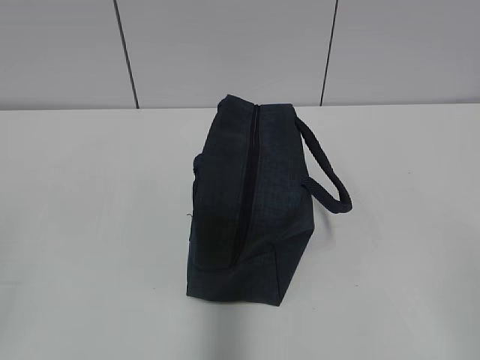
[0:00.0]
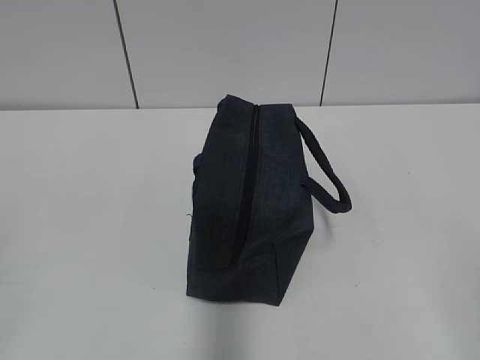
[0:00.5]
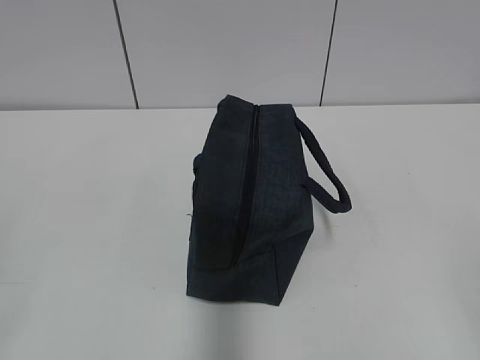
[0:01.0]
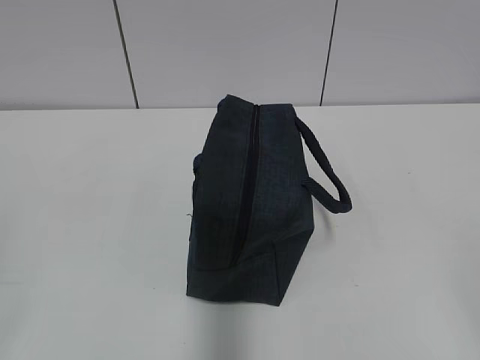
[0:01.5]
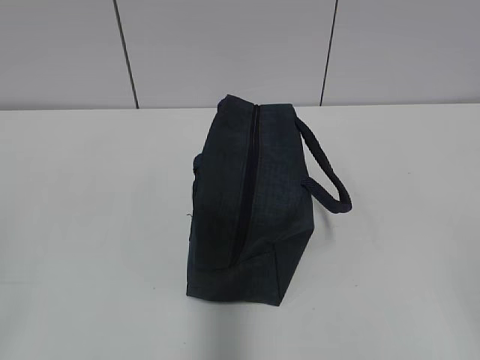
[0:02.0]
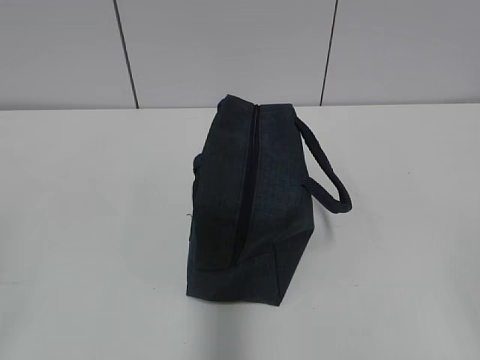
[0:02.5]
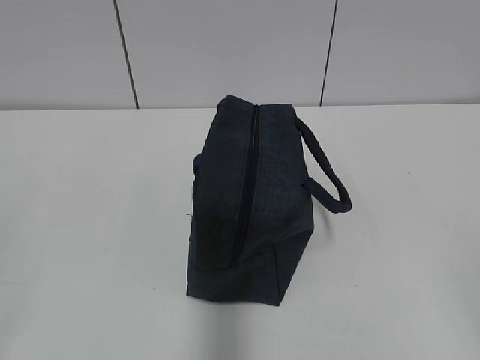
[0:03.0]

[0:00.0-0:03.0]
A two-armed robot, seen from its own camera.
0:01.5 to 0:03.0: Both grippers stay about where they are.

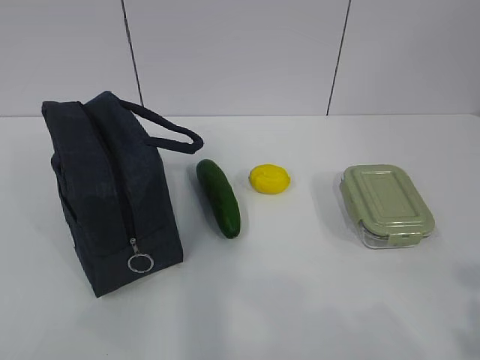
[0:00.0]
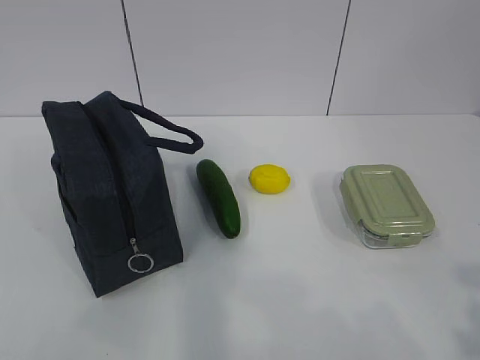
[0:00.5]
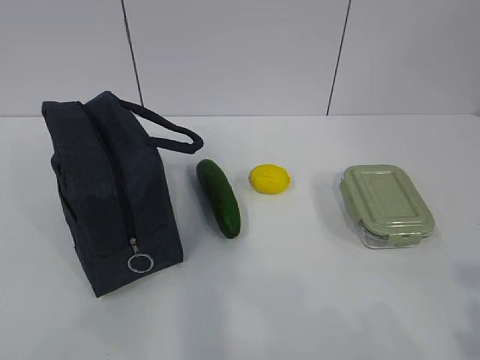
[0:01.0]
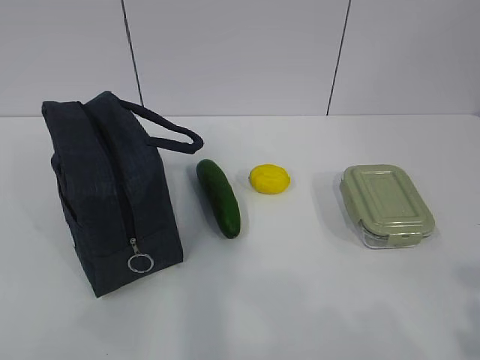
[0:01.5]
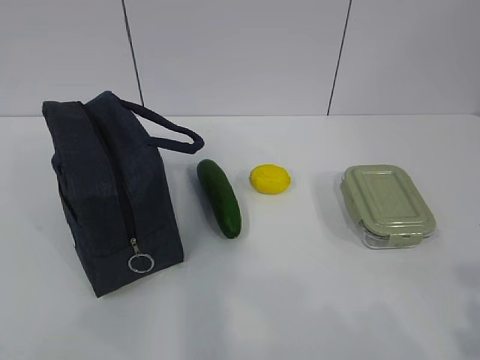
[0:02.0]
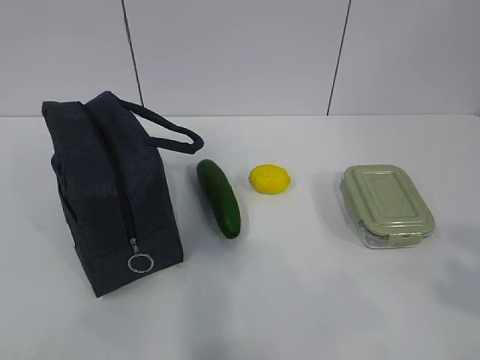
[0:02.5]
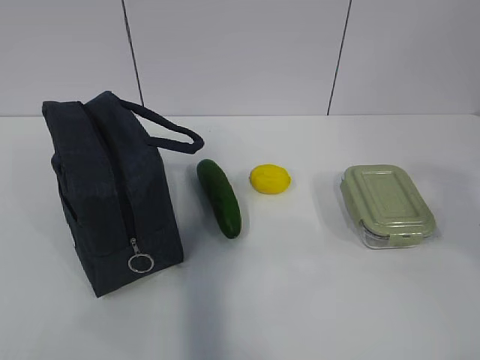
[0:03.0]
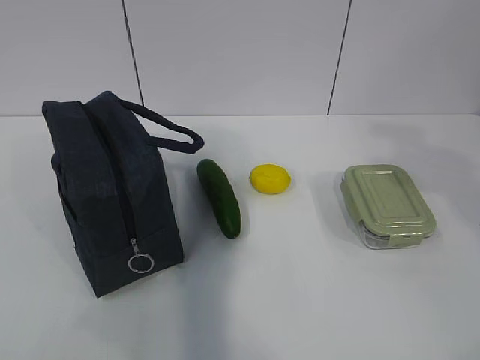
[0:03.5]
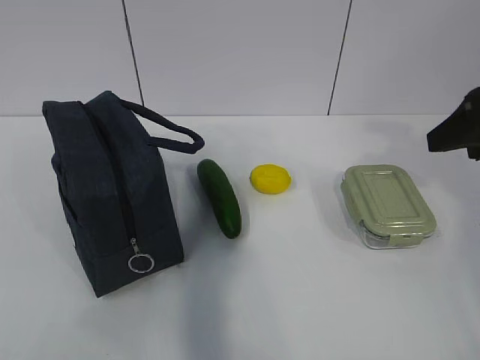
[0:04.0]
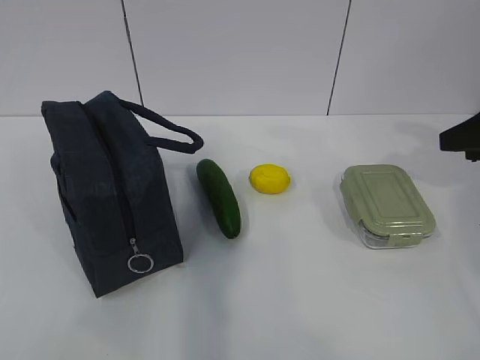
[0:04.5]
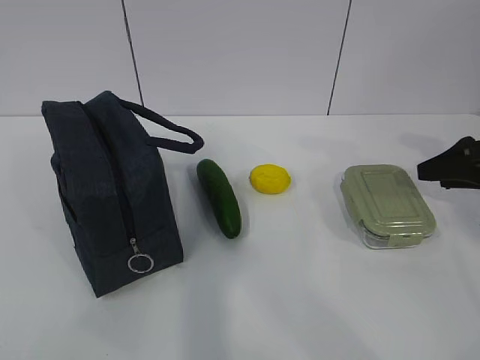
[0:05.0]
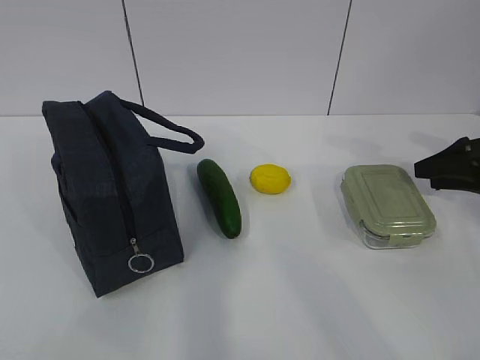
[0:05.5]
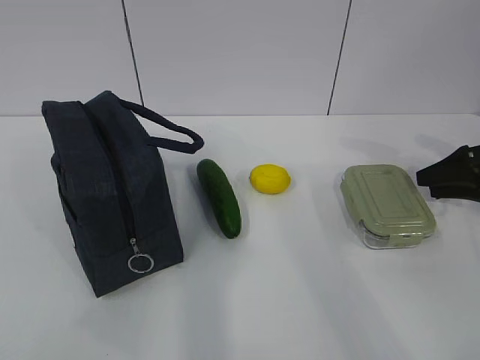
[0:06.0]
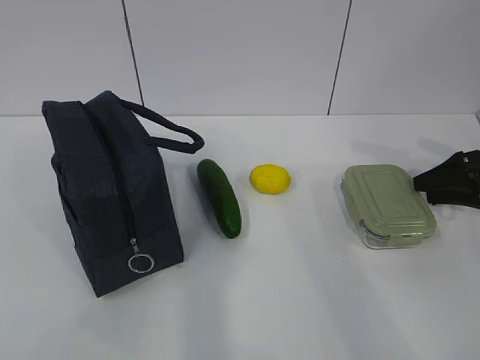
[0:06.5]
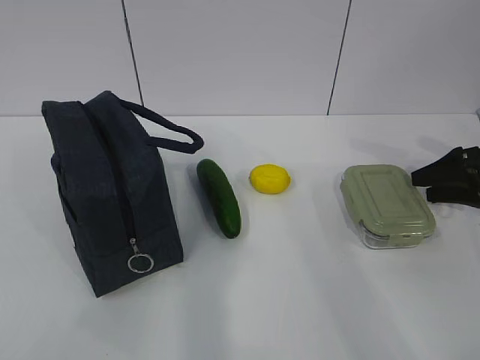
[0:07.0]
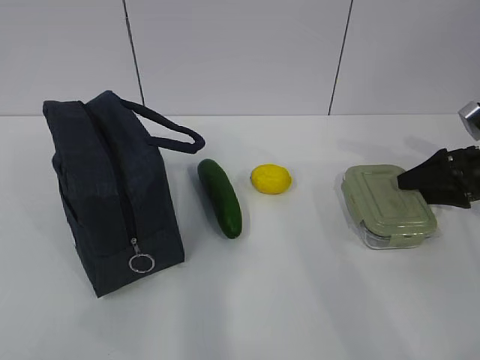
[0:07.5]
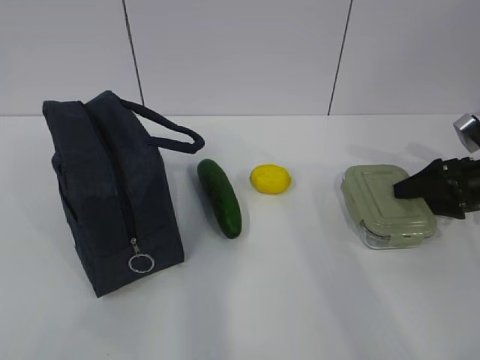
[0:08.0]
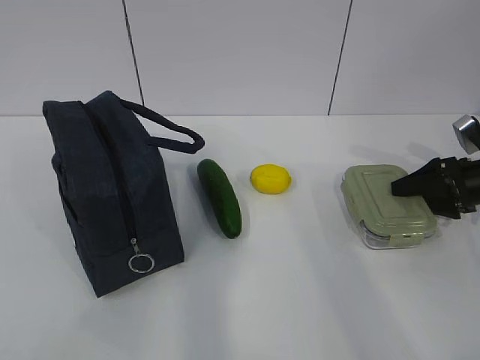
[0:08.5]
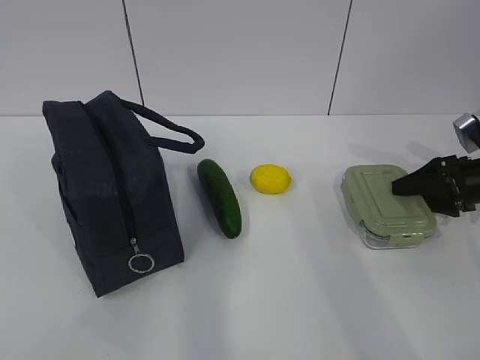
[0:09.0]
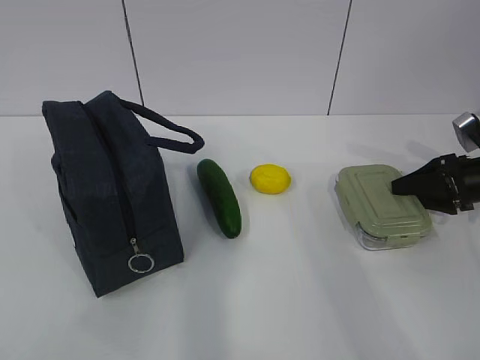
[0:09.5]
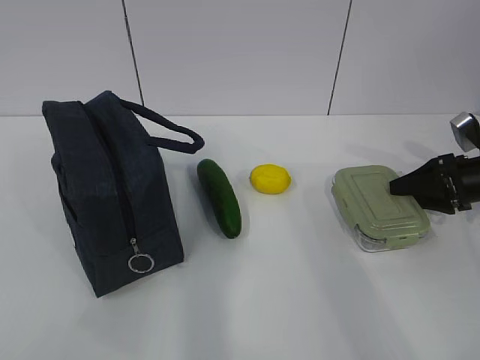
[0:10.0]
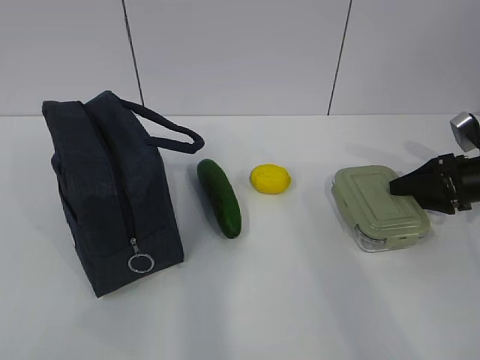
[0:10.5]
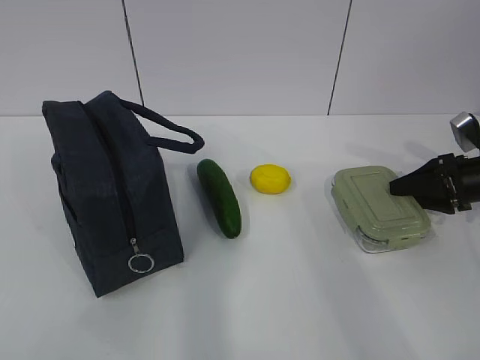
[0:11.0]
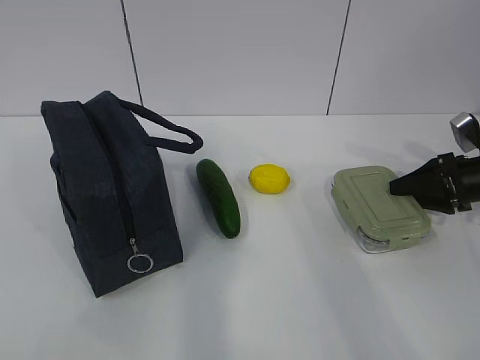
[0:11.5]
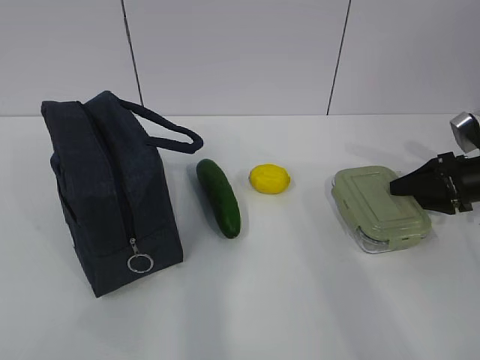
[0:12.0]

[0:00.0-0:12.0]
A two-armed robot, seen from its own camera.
Step, 0:00.0 to 0:10.5: Grab the lunch box with your right hand.
0:02.0 to 0:04.0: The right gripper heads forward, covering some 30 cm.
0:04.0 to 0:06.0: The right gripper heads downward, to the right and forward, covering about 20 cm.
0:06.0 to 0:08.0: The grippers make only small movements.
0:08.0 to 0:12.0: Both grippers stay put.

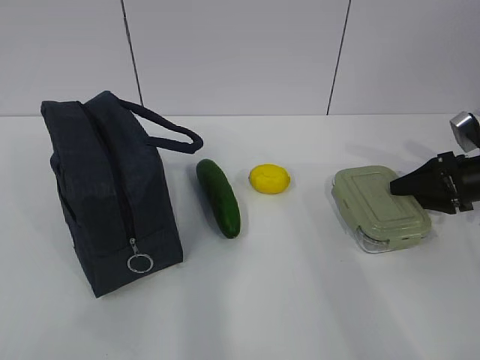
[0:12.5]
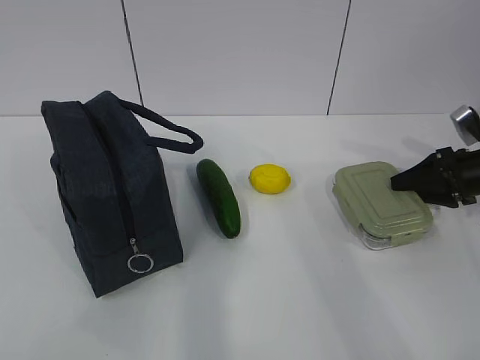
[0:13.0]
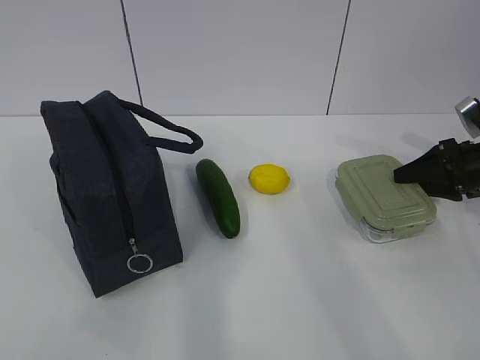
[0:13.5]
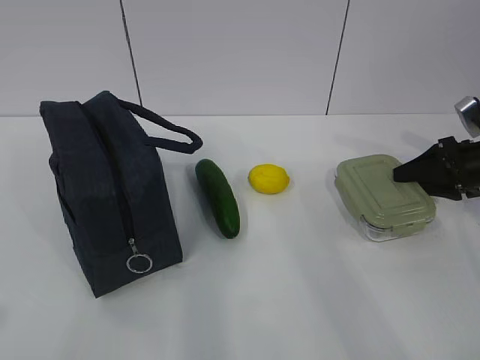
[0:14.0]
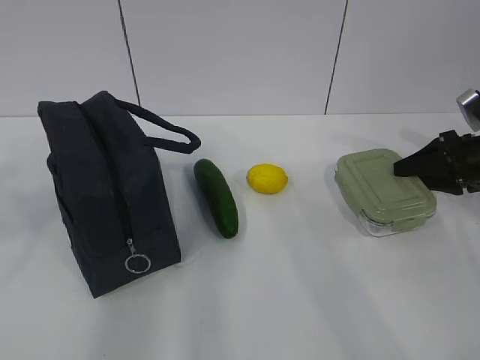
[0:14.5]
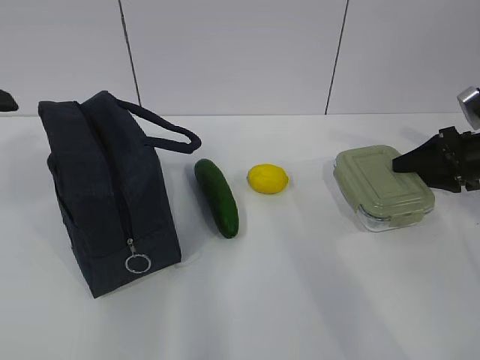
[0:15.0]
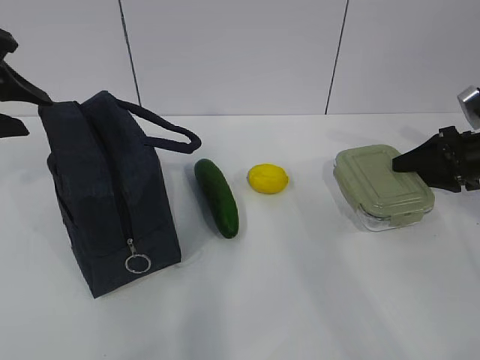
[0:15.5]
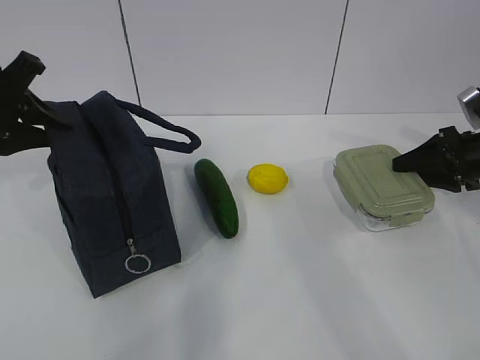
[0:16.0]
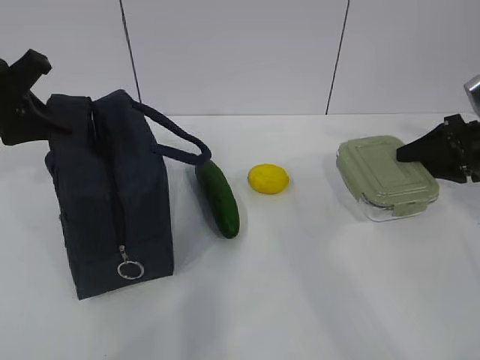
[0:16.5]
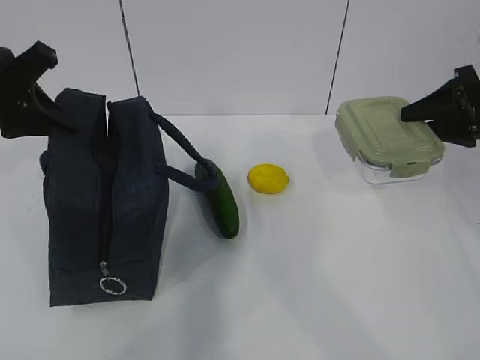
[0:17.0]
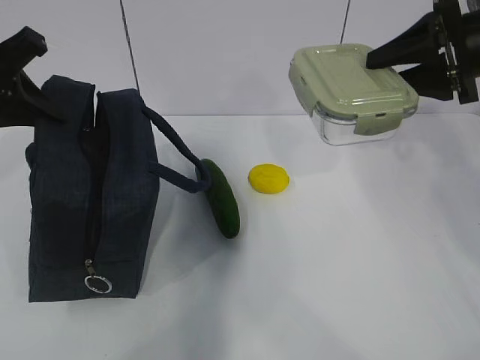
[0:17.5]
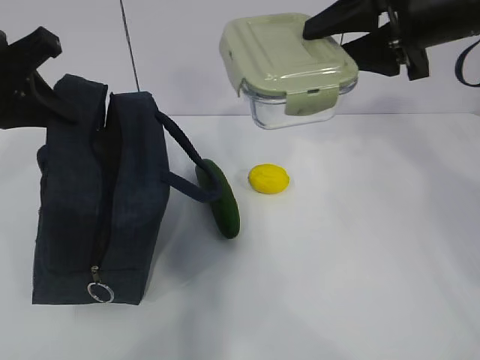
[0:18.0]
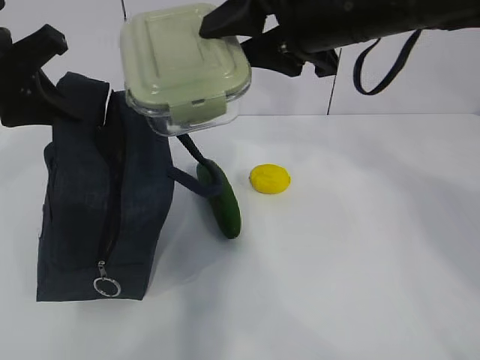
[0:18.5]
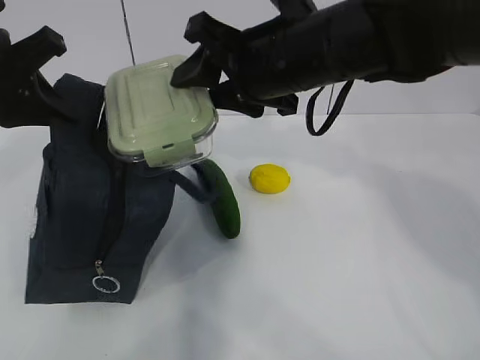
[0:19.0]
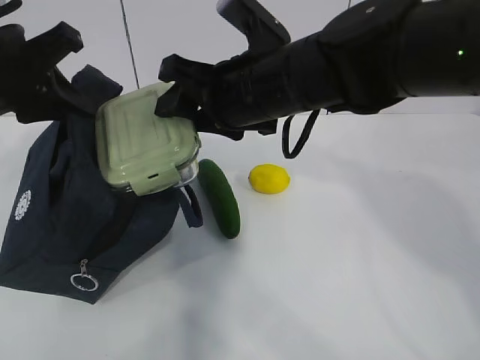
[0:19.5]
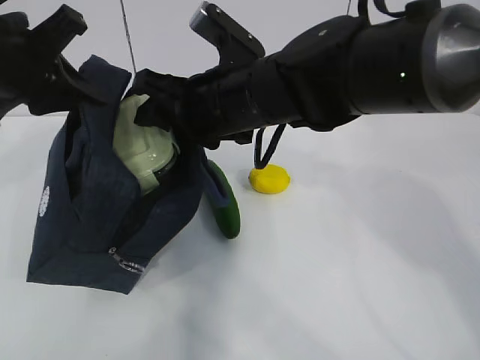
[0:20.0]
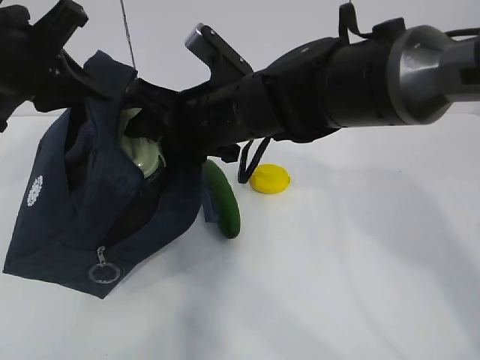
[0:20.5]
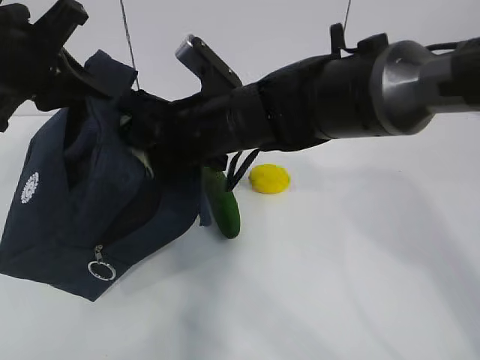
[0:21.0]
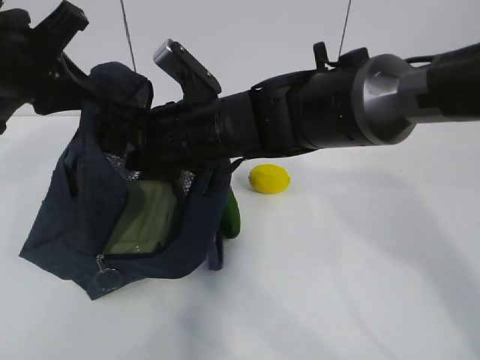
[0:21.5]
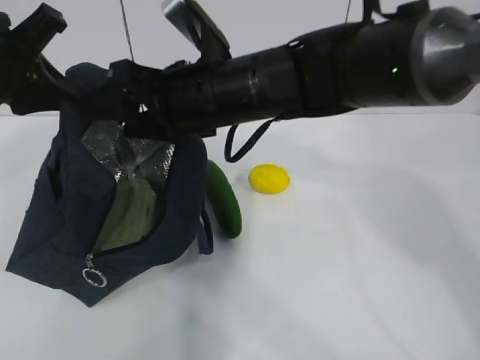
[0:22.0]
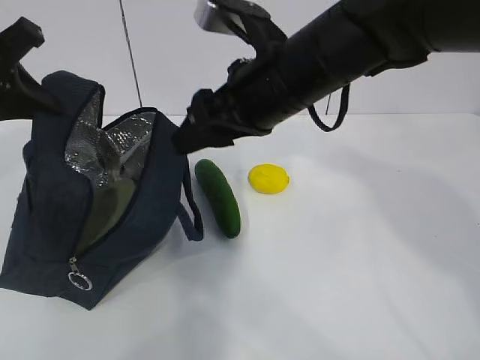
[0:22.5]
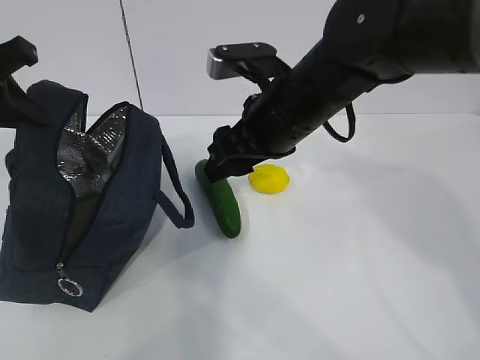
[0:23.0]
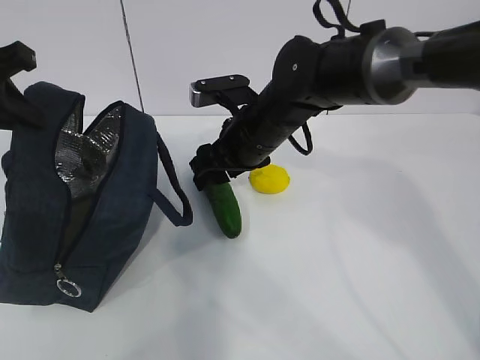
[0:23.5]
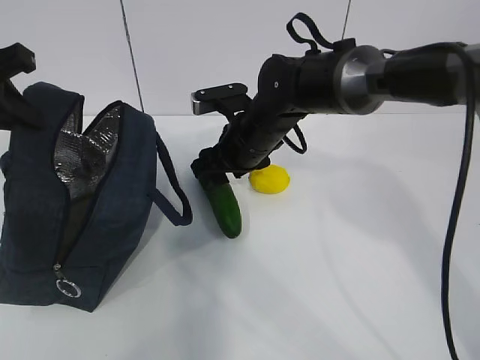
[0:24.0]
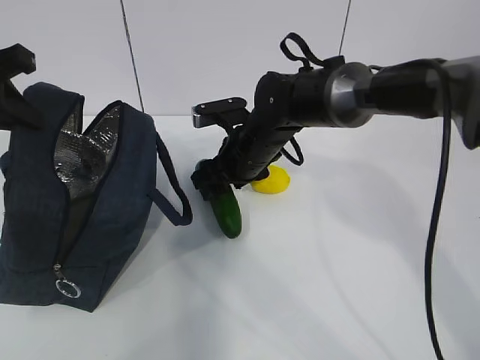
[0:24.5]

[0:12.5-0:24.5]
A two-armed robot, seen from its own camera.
Step, 0:12.5 to 0:15.5: Grab the lunch bag with your left hand.
Step, 0:16.0 to 0:17.5: Place it into the bag with your right hand.
Step, 0:18.0 to 0:21.0: Grab the cucumber with your right hand.
Step, 0:21.5 to 0:24.0: Place it into the bag with your right hand.
0:12.5 to 0:14.5: The left gripper shifts roughly 15 cm forward, and opens its fingers.
0:14.5 to 0:16.5: The left gripper goes some 20 cm forward, and closes its fingers.
0:16.5 to 0:18.5: The left gripper shifts by approximately 5 cm; the right gripper is displaced to the left and upward by roughly 35 cm.
0:18.5 to 0:20.5: The right gripper shifts about 15 cm downward and to the left.
0:20.5 to 0:22.5: The right gripper moves to the right, about 5 cm.
0:22.5 to 0:24.5: The right gripper heads downward and forward, covering approximately 15 cm.
